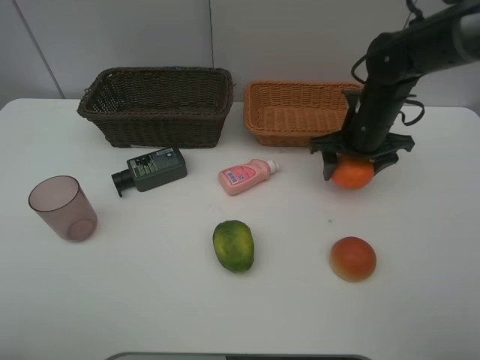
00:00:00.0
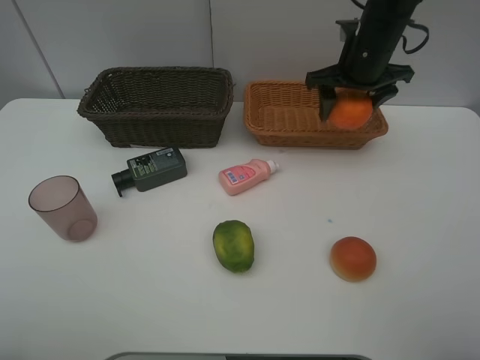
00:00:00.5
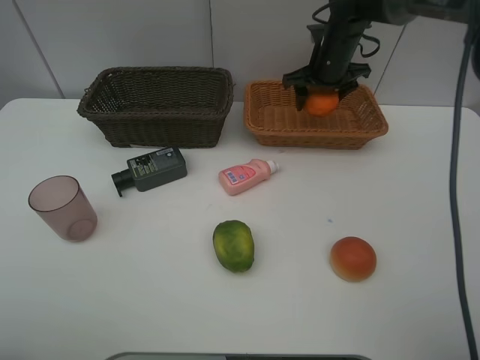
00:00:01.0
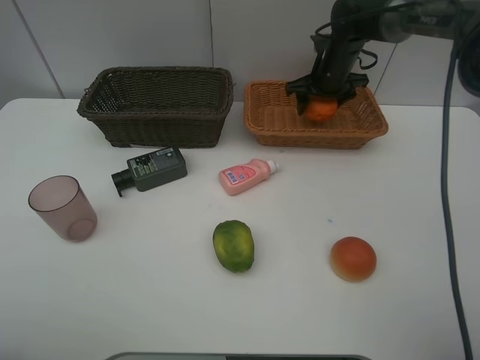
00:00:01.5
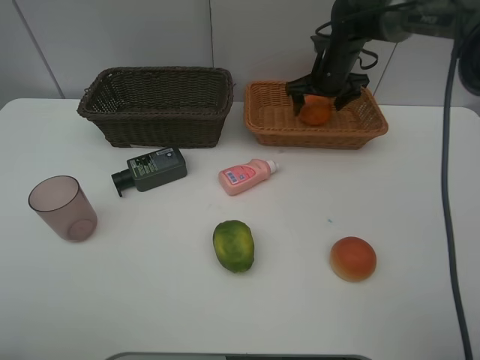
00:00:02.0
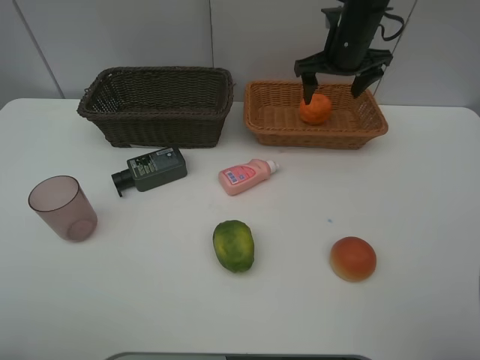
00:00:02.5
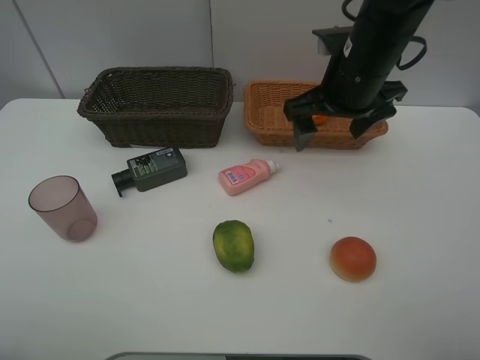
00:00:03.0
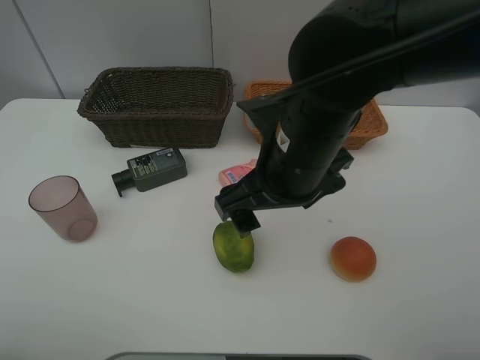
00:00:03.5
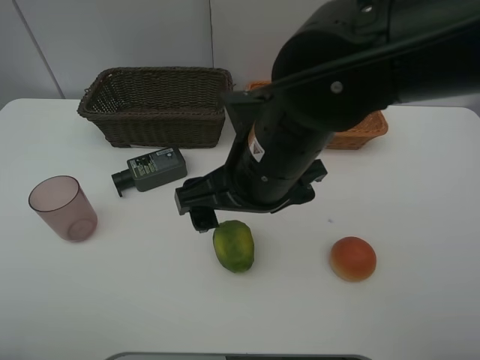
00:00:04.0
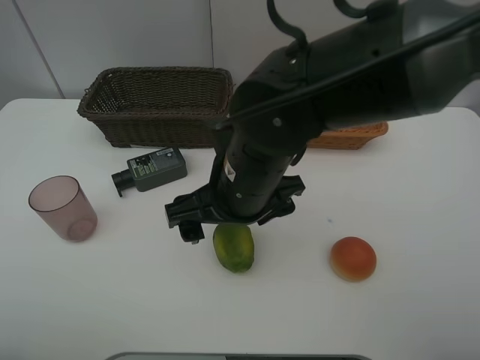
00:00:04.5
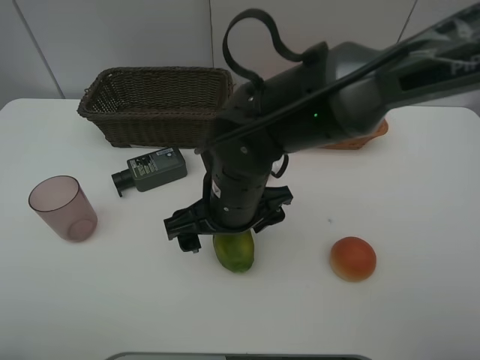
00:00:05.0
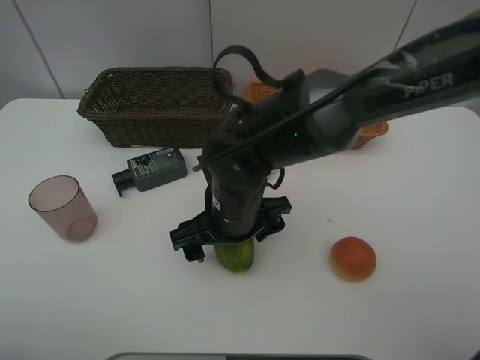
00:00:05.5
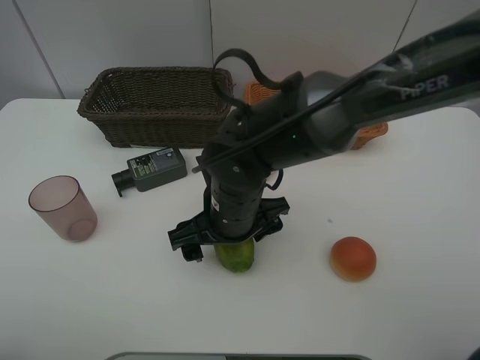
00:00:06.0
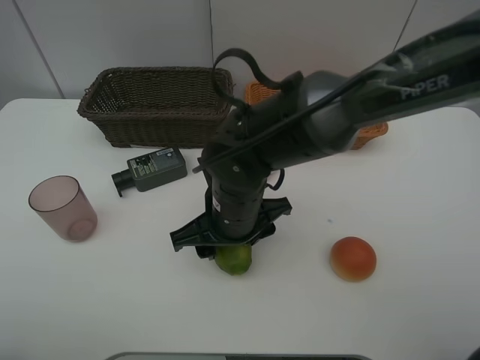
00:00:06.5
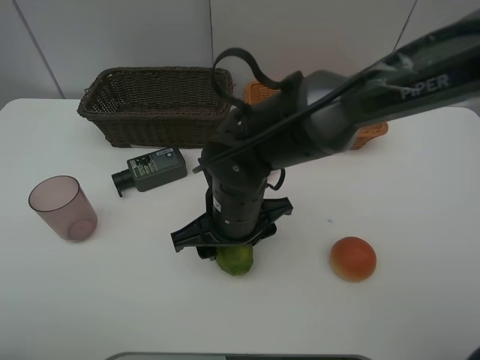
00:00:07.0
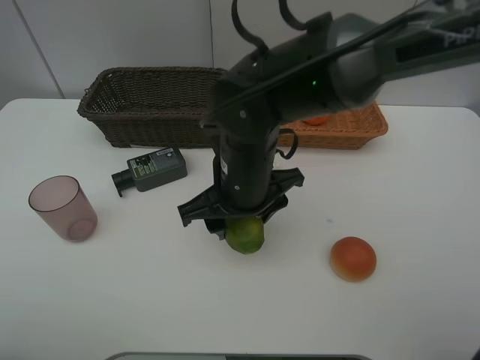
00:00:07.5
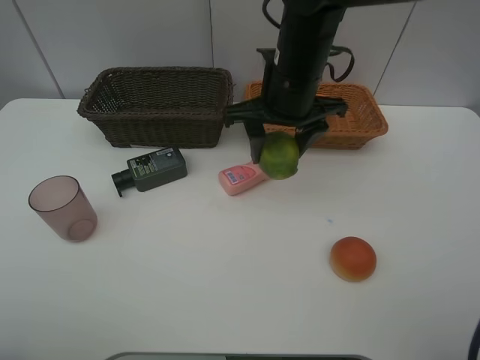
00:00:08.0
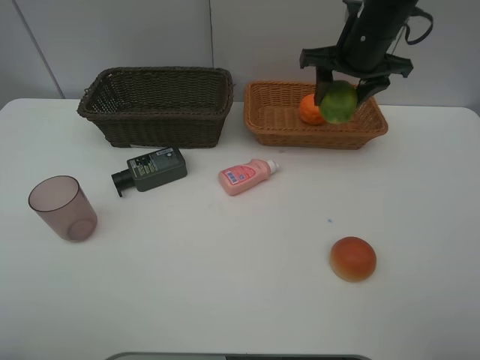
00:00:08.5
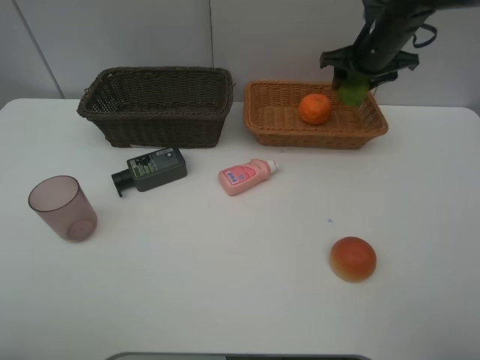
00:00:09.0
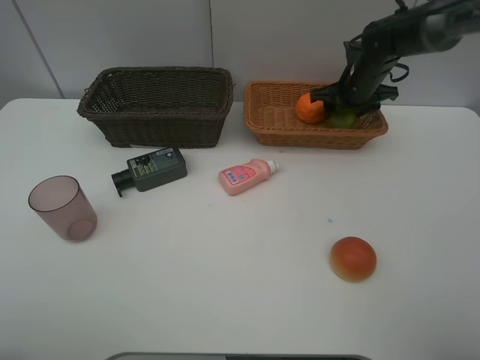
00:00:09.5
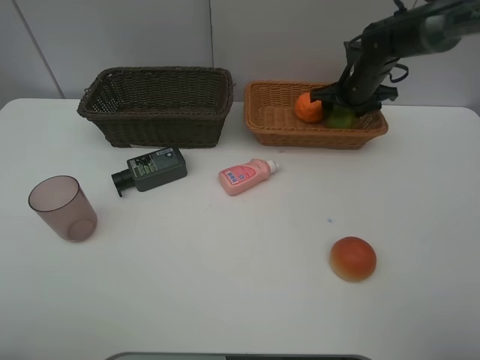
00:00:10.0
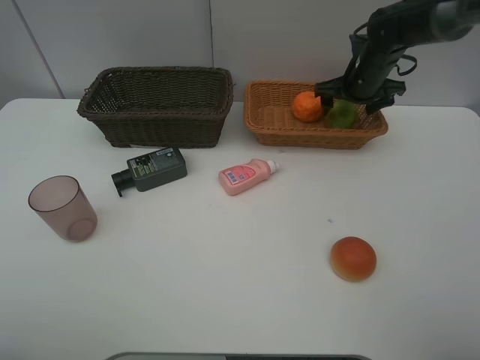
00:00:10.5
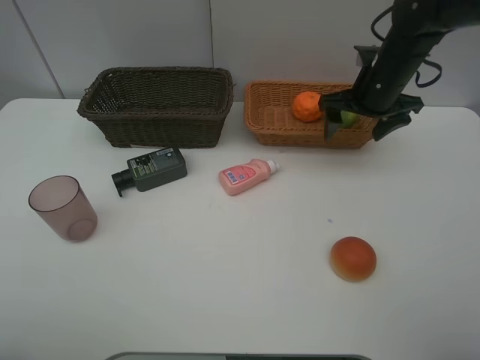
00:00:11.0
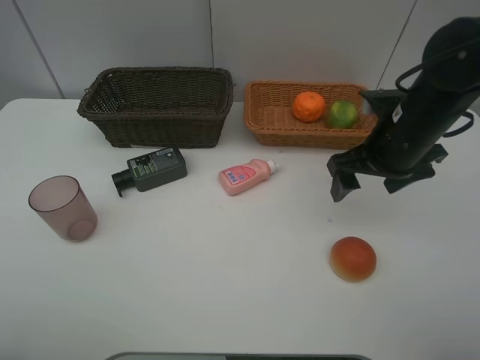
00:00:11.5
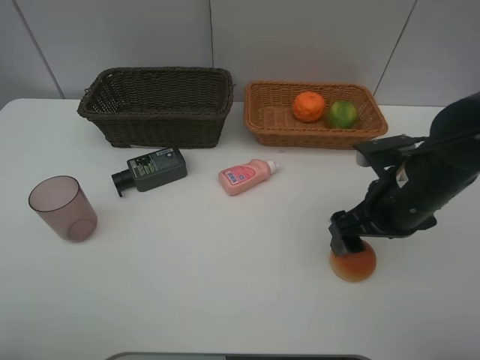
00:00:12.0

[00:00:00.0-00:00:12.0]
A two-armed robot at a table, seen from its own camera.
Task of the whole recording: place multiple objects separately in different baskets.
00:00:00.0 to 00:00:02.0: The right gripper travels forward by some 15 cm, and opens up.
00:00:02.0 to 00:00:04.0: The right gripper goes approximately 35 cm backward and to the left.
00:00:04.0 to 00:00:06.0: The right gripper goes some 10 cm downward.
00:00:06.0 to 00:00:08.0: The right gripper heads upward, forward and to the right, covering roughly 20 cm, and closes up.
00:00:08.0 to 00:00:10.0: The right gripper moves to the right, forward and downward, approximately 20 cm.
00:00:10.0 to 00:00:12.0: The right gripper heads backward, covering about 25 cm, and opens up.

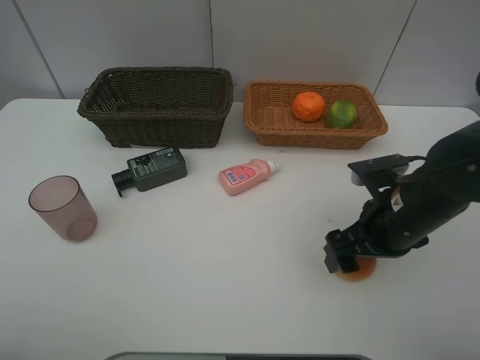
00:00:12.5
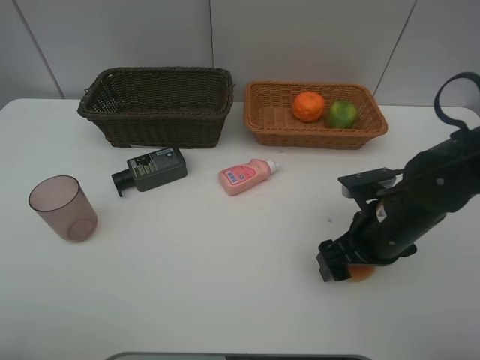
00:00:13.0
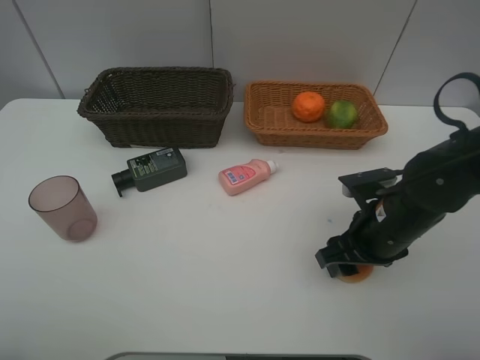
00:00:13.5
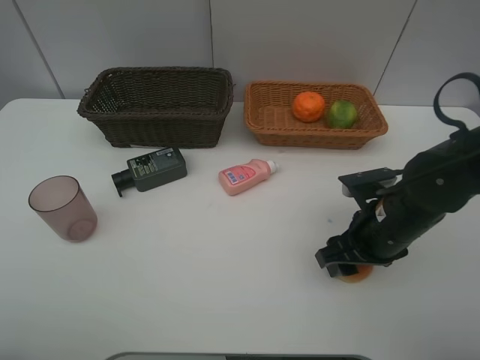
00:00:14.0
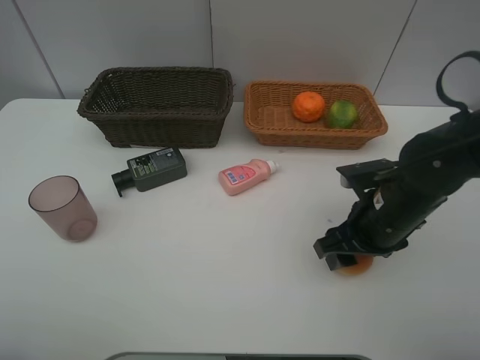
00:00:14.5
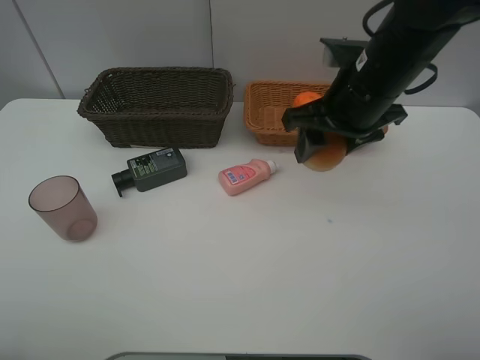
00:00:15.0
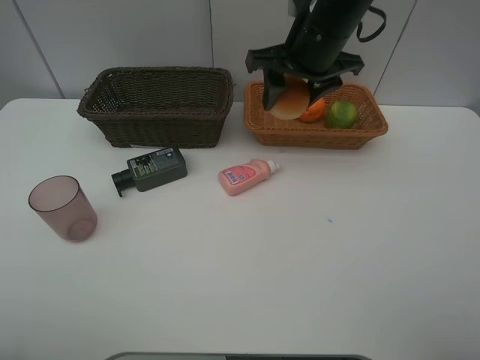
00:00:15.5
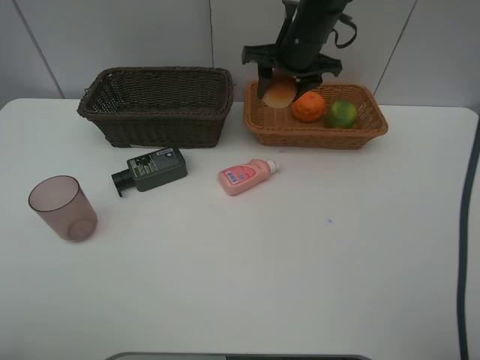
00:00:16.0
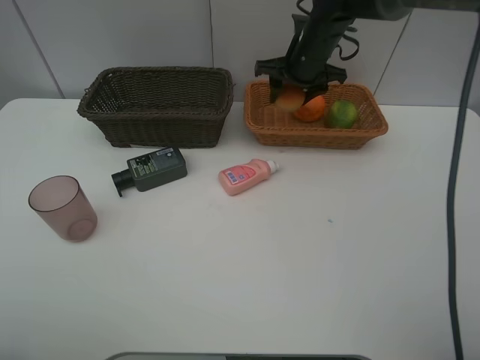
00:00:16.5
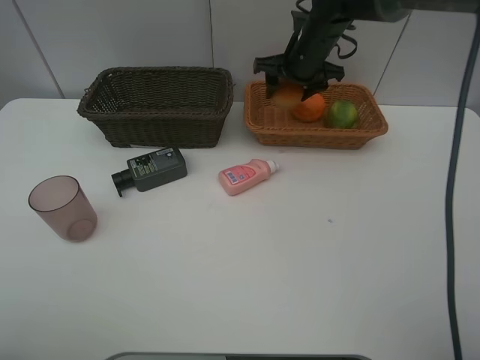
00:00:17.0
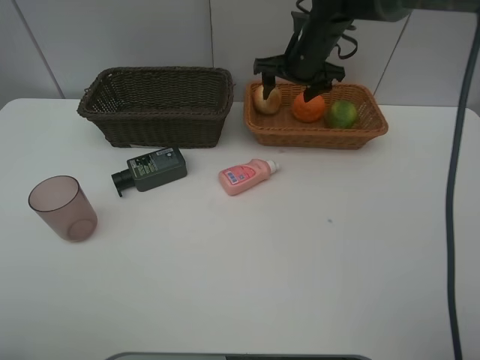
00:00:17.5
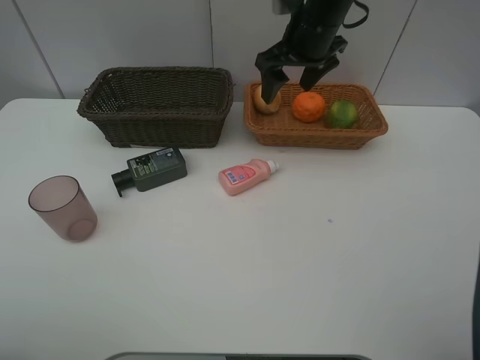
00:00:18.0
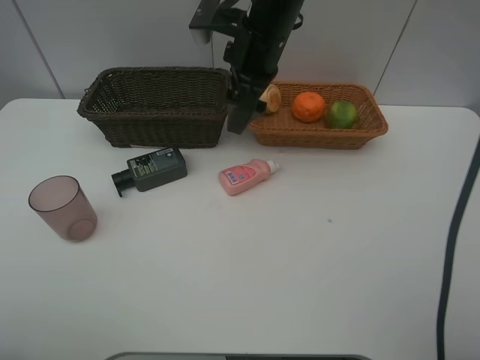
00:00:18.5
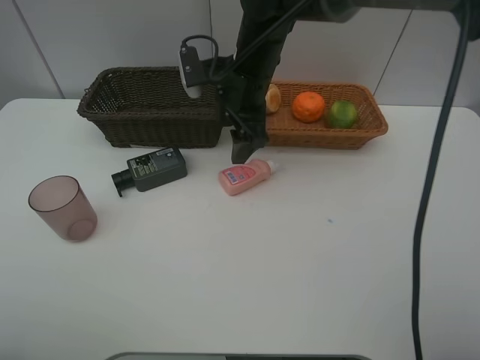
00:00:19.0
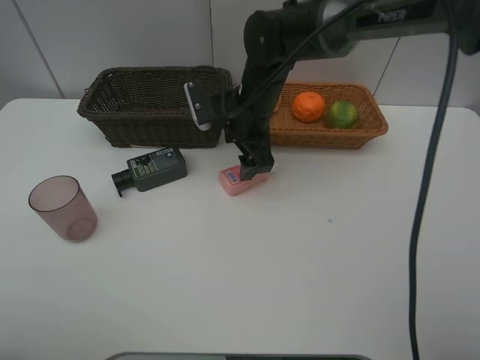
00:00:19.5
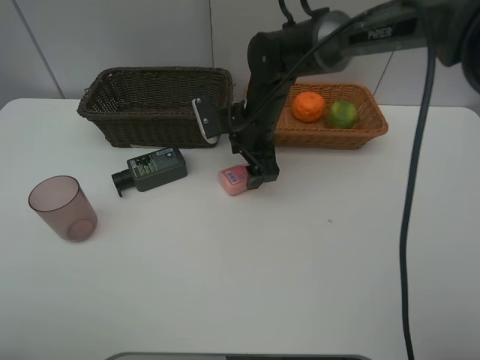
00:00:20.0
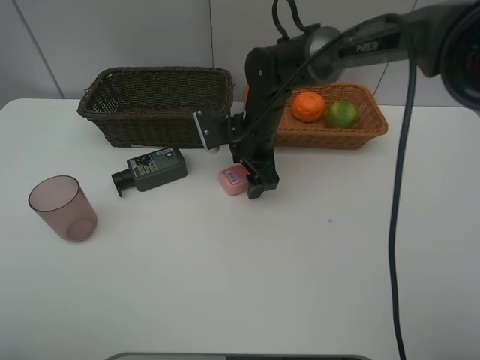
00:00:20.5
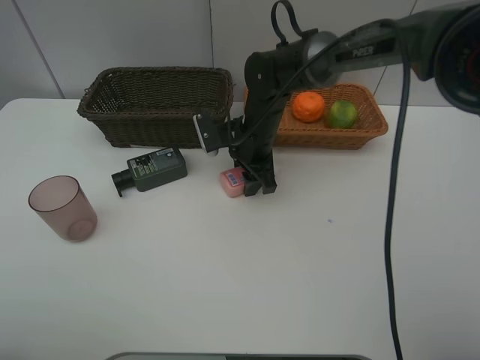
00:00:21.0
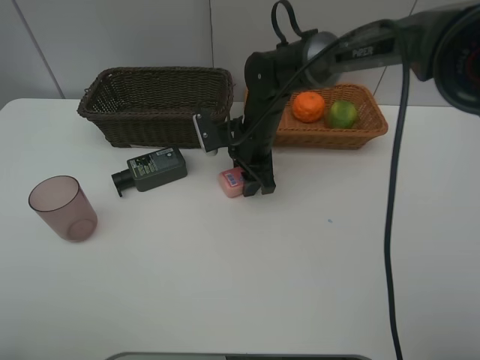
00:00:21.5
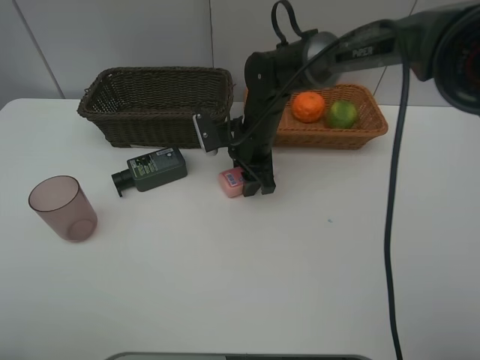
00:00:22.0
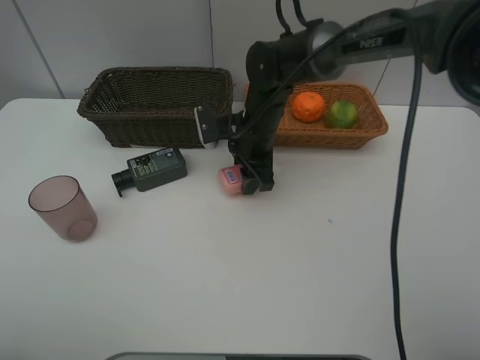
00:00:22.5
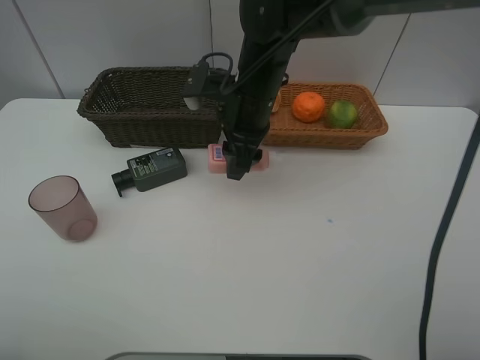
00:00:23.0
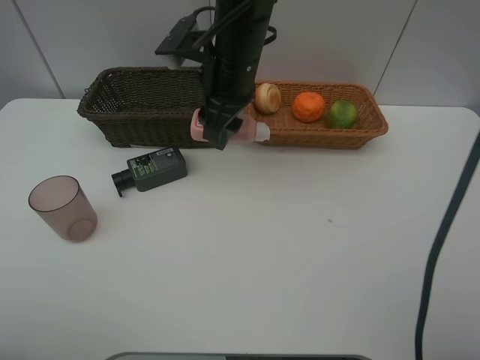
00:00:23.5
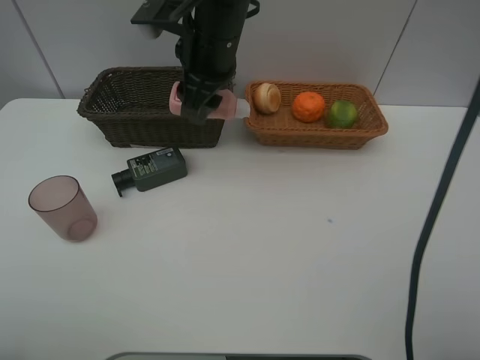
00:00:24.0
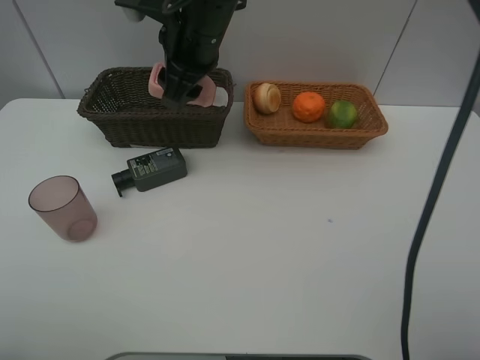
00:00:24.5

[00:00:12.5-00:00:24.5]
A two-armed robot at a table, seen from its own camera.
Task of the whole recording: place multiple objects separately in different baskets.
00:00:12.5 to 00:00:14.5: The right gripper closes up.
00:00:14.5 to 00:00:16.5: The right gripper moves forward, some 25 cm.
00:00:16.5 to 00:00:18.5: The right gripper moves backward, to the left and upward, about 15 cm, and opens its fingers.
00:00:18.5 to 00:00:20.5: The right gripper heads downward, covering roughly 15 cm.
00:00:20.5 to 00:00:22.5: The right gripper closes its fingers.
00:00:22.5 to 00:00:24.5: The right gripper heads upward and to the left, covering approximately 15 cm.

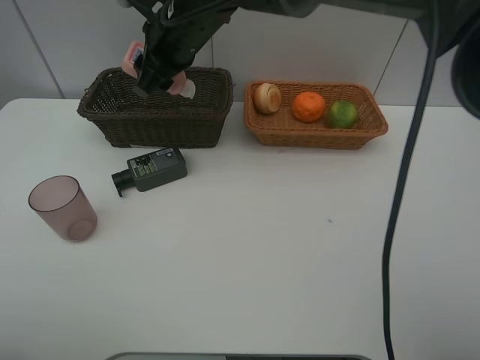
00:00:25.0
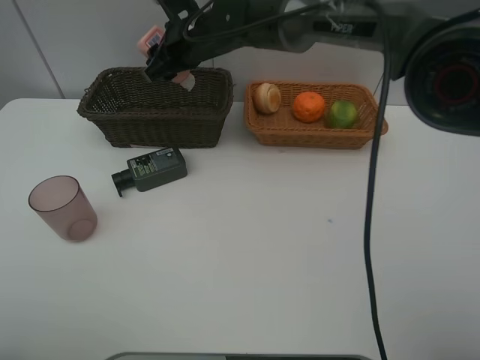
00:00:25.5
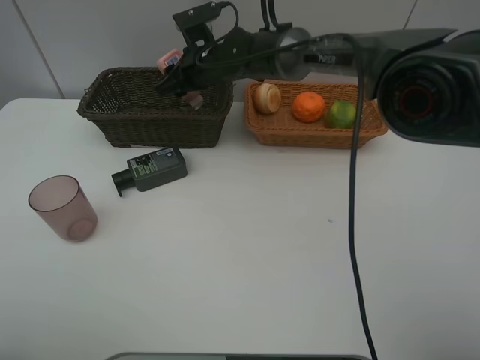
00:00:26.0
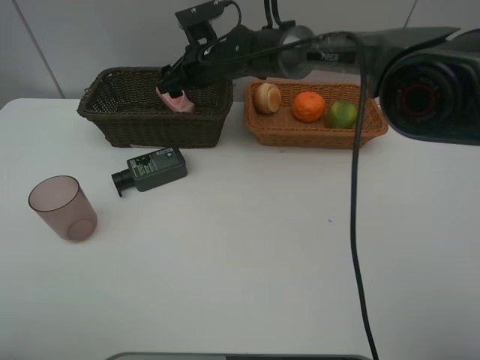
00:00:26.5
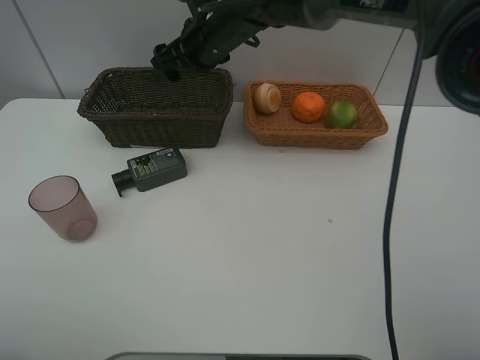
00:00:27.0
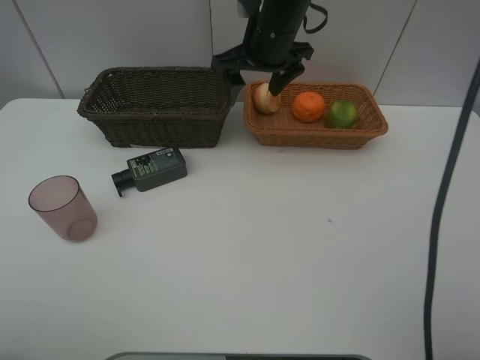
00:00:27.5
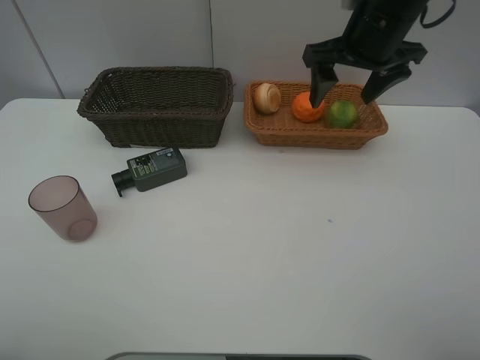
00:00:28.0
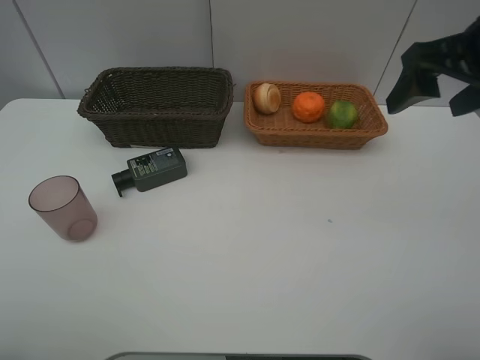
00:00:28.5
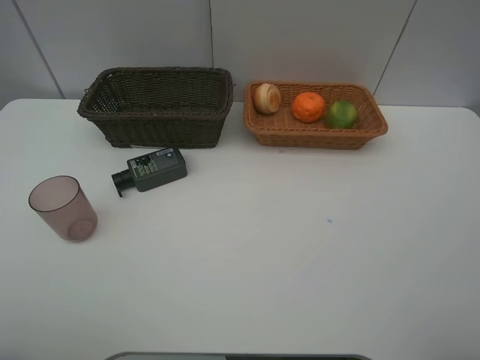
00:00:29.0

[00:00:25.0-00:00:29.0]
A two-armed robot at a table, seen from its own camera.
Task of the whole recording: place multiple objects separately in different baskets.
00:00:25.0 to 00:00:27.0: The right gripper moves approximately 10 cm downward and comes back, and opens.
00:00:27.0 to 00:00:29.0: The right gripper shifts some 50 cm backward, to the right and upward.
